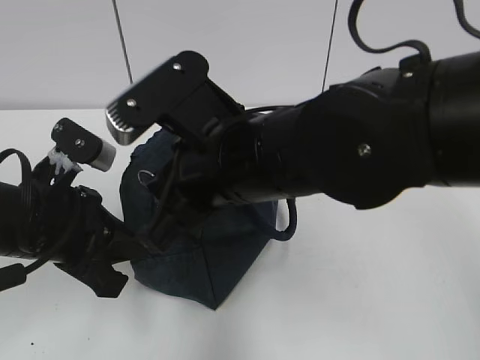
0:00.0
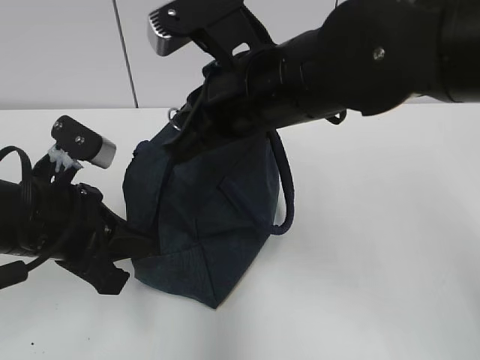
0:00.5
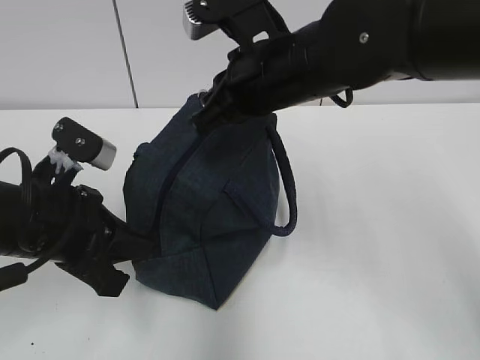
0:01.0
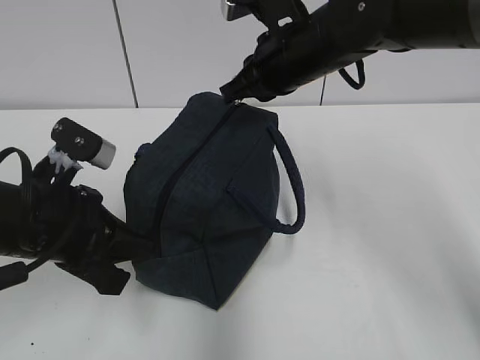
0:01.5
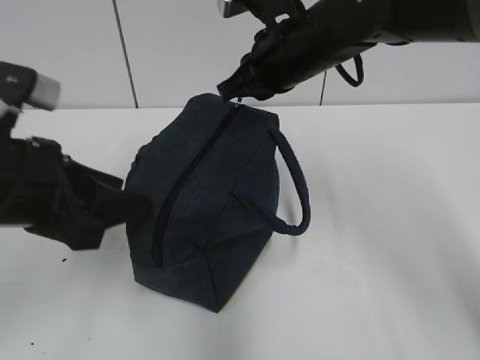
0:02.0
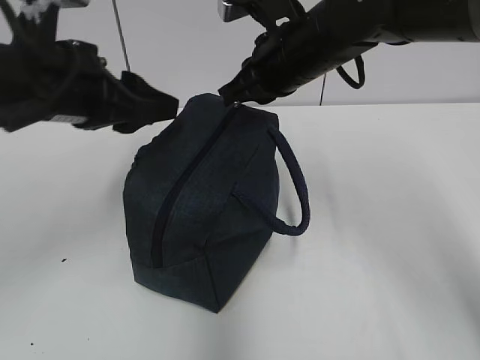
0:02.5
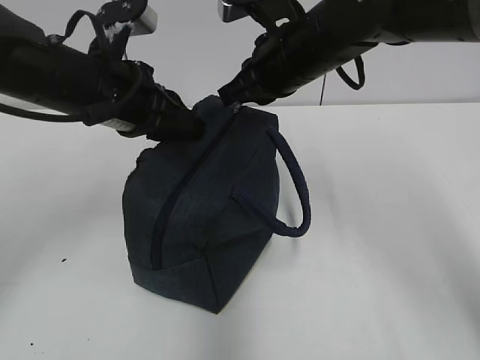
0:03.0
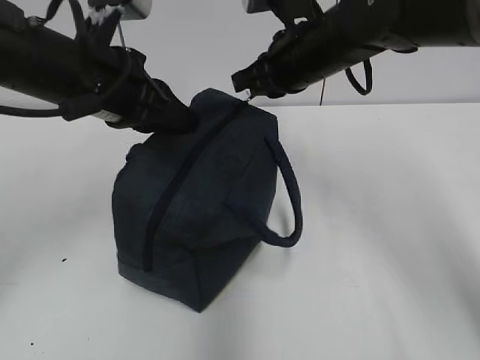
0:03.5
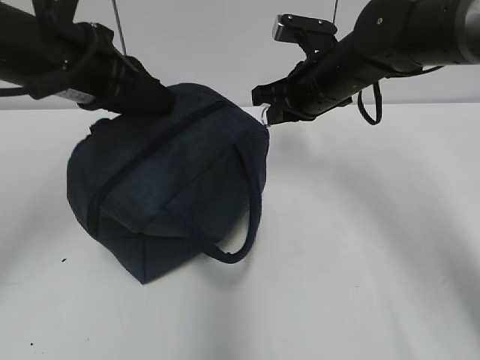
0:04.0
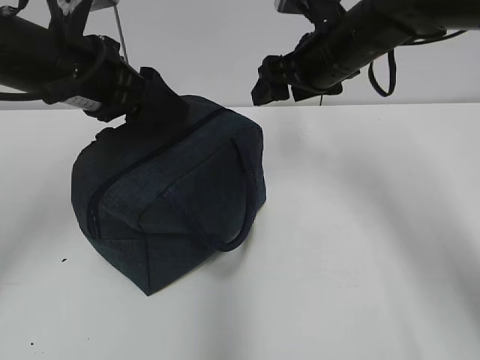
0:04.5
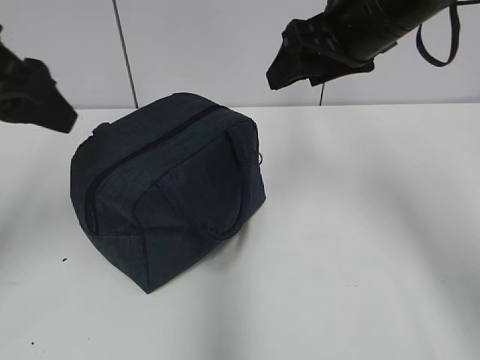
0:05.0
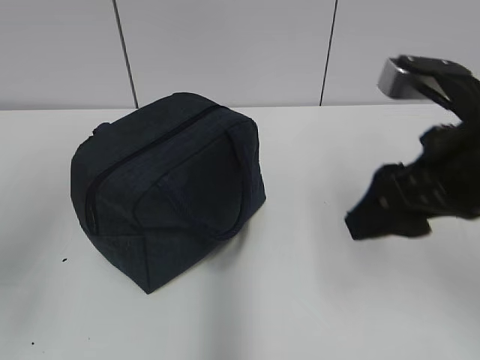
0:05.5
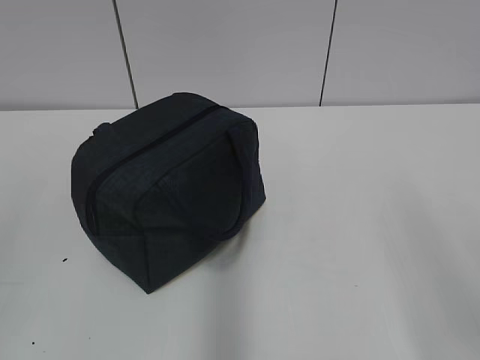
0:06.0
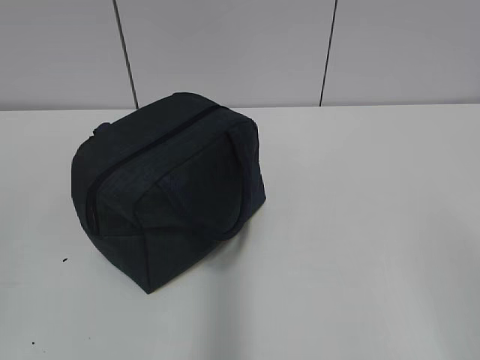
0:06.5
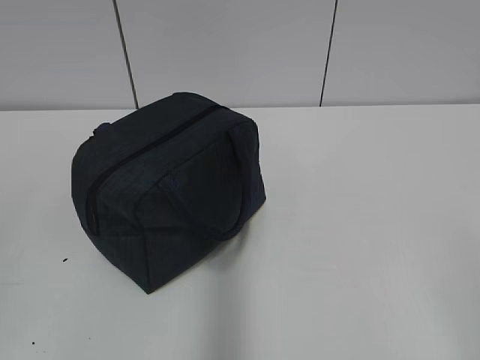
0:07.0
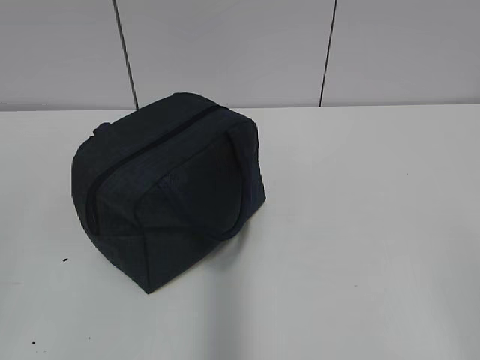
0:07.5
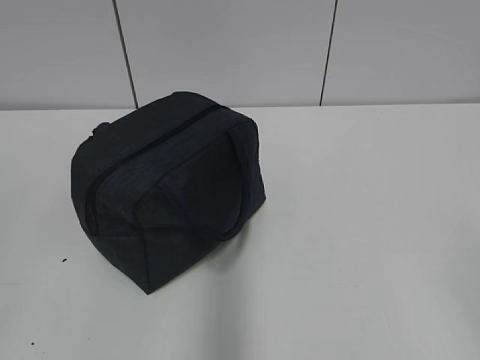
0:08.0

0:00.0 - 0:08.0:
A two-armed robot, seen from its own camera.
Step, 0:02.0 - 0:04.0: Pull the zipper with your right hand.
0:00.0 - 0:02.0: The left gripper moves upward, approximately 5 cm, and opens its fingers. The right gripper heads forward and to the right, covering some 15 cm.
0:02.0 - 0:04.0: The right gripper travels downward and to the right by approximately 5 cm. Meanwhile the left gripper travels forward and upward by some 10 cm, and closes.
0:04.0 - 0:06.0: The left gripper moves backward and to the left, roughly 30 cm, and opens up. Meanwhile the right gripper moves backward, approximately 35 cm, and opens its fingers.
0:06.0 - 0:08.0: The right gripper moves backward, about 10 cm.

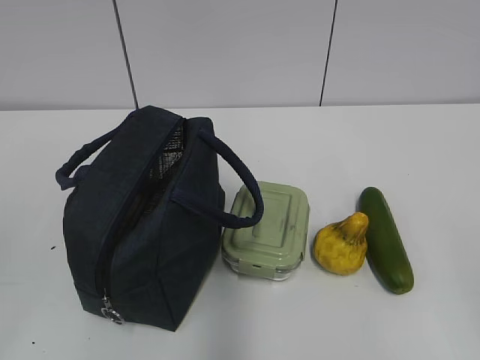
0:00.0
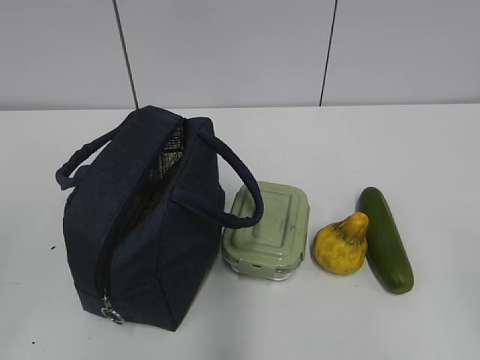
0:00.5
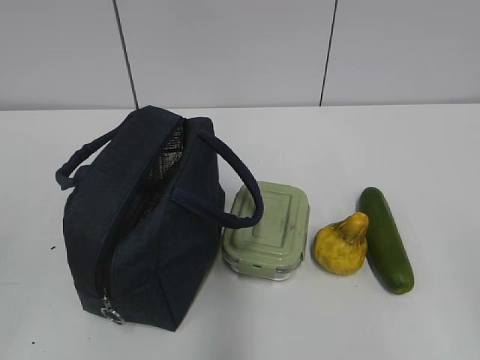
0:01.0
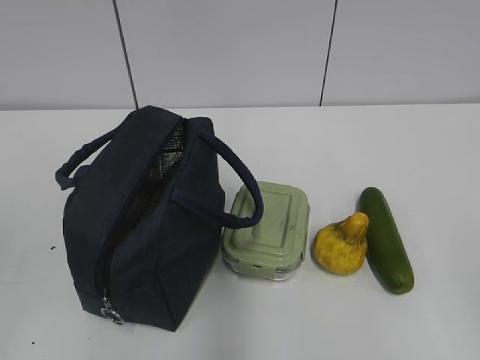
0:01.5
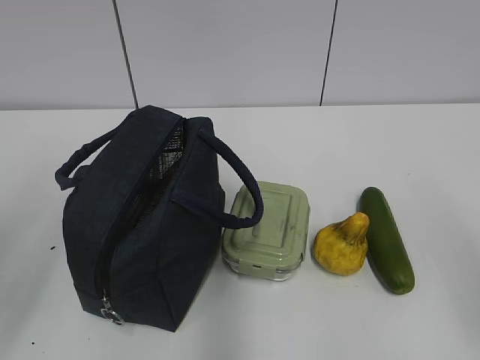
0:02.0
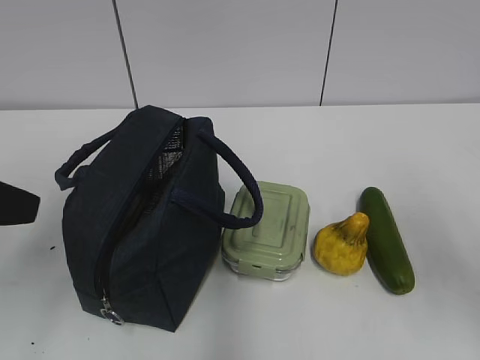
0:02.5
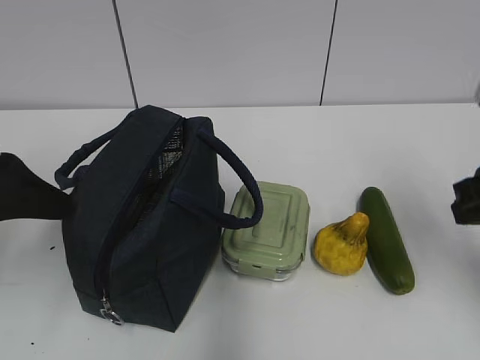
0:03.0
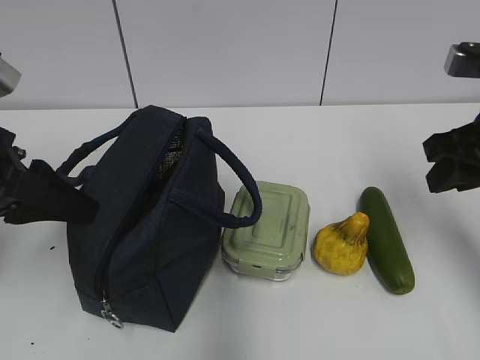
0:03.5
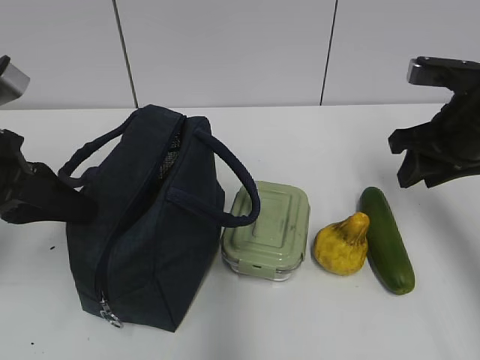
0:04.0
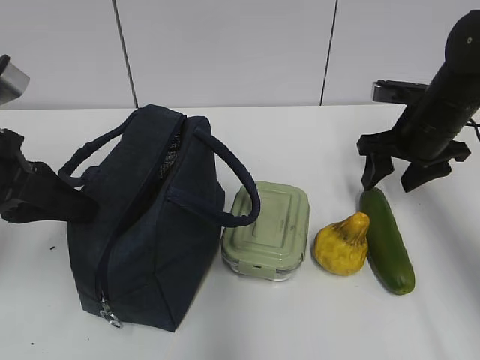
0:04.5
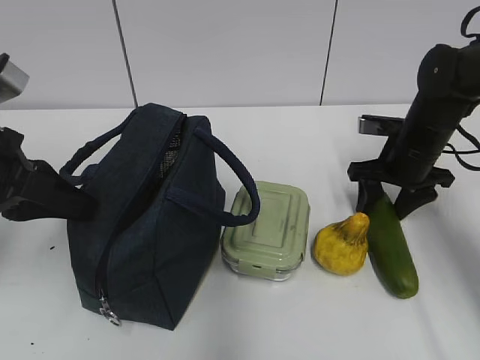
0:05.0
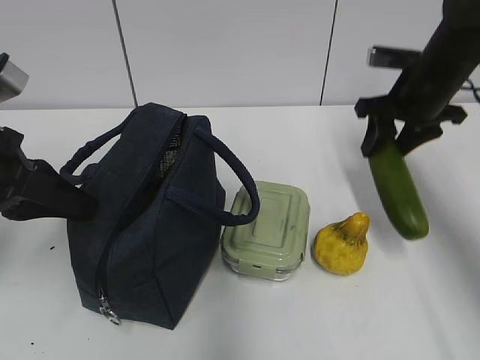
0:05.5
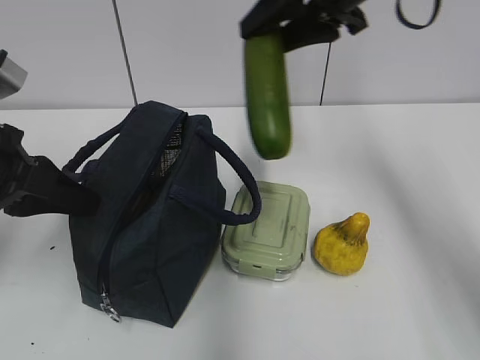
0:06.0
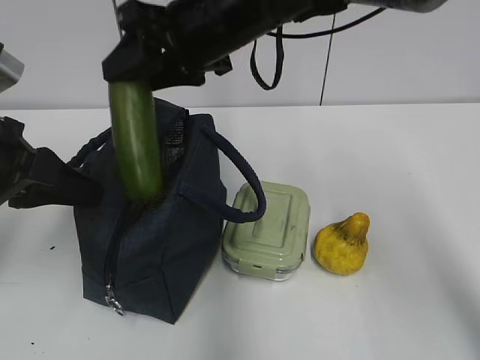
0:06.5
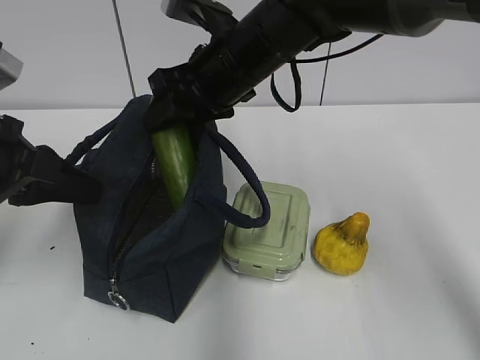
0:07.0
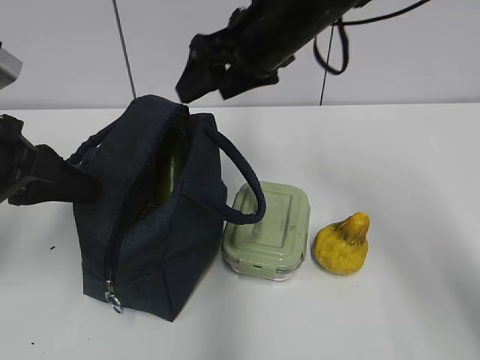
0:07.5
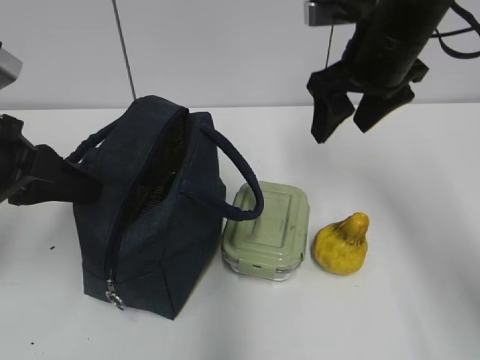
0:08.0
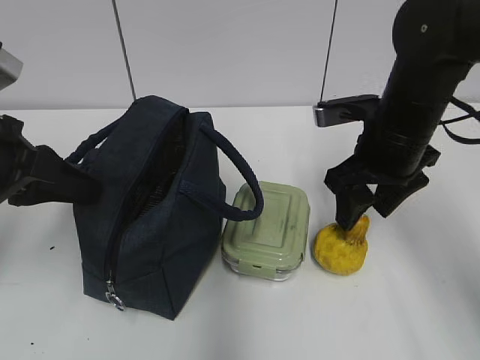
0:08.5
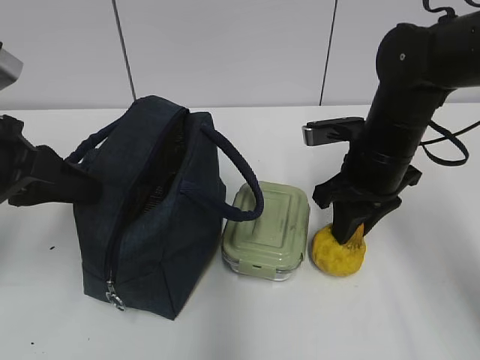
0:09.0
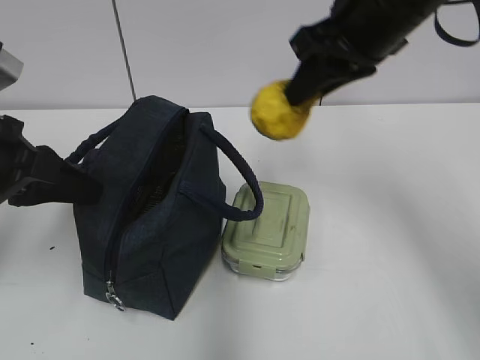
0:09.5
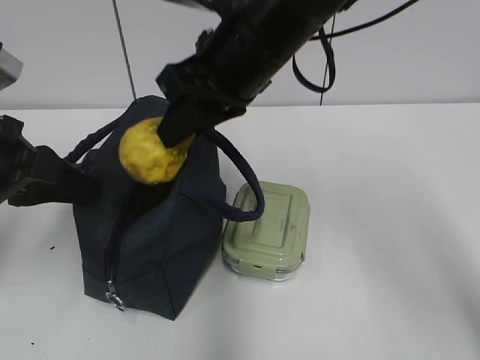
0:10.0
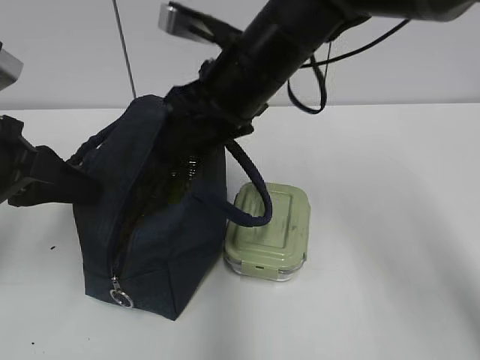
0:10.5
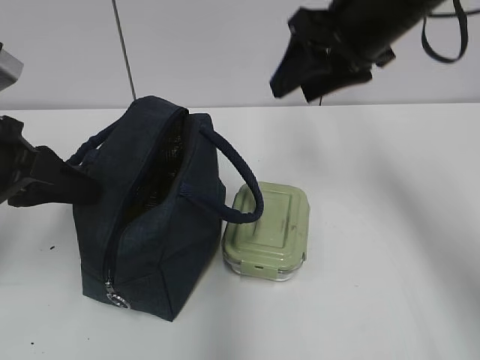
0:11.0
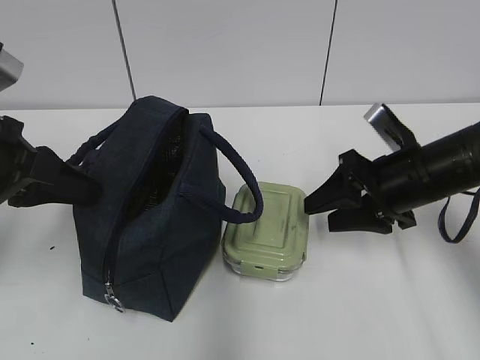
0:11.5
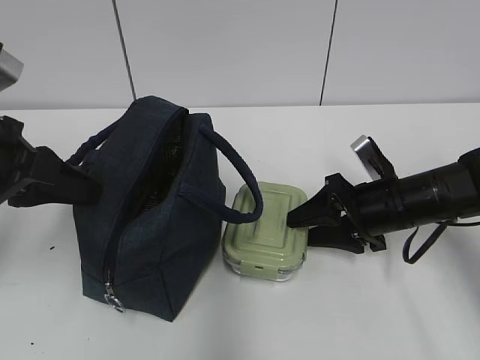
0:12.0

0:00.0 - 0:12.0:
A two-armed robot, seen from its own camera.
0:02.0 - 0:04.0: The left gripper shifts some 15 cm forward and downward, and closes up. The right gripper heads forward, covering roughly 25 cm.
0:04.0 - 0:06.0: The right gripper moves to the left, upward and forward, about 20 cm.
0:06.0 - 0:08.0: The right gripper is displaced downward by some 5 cm, and travels to the left and back again, roughly 10 cm each way.
0:08.0 - 0:10.0: The right gripper heads to the left, covering roughly 15 cm, reaches approximately 10 cm downward, then returns, and closes.
0:10.0 - 0:12.0: The right gripper travels downward and to the right by roughly 25 cm, and opens up.

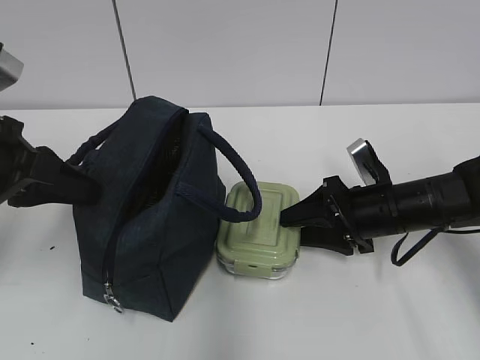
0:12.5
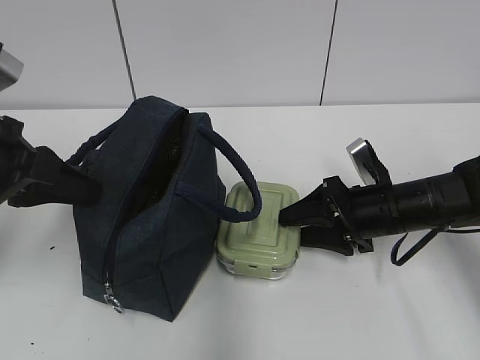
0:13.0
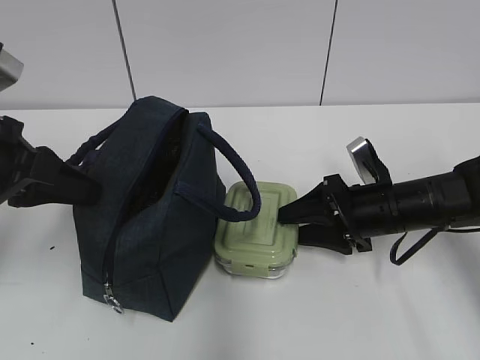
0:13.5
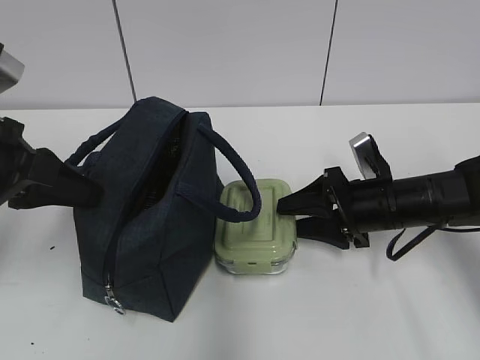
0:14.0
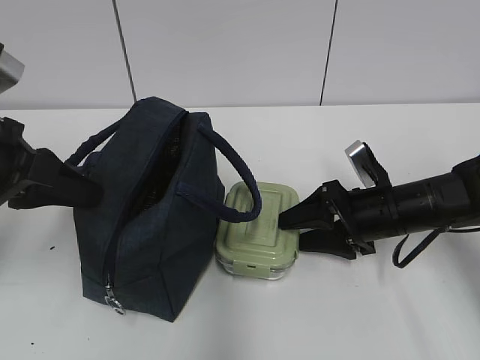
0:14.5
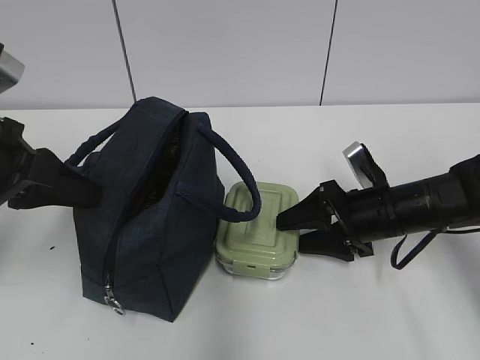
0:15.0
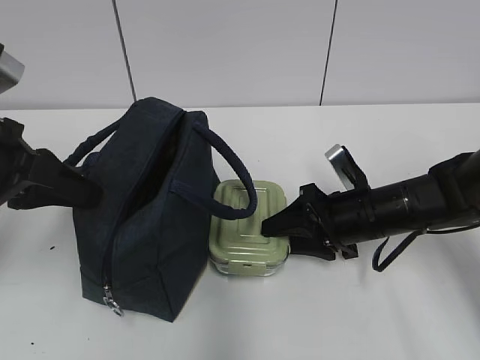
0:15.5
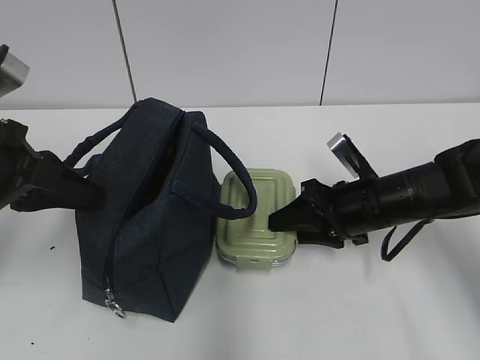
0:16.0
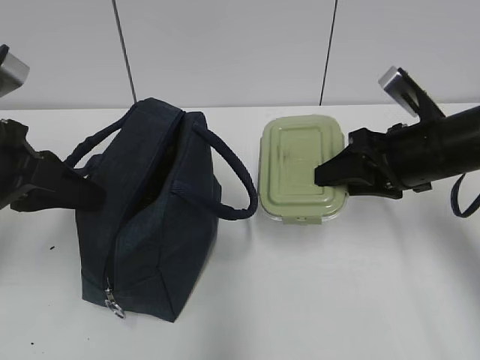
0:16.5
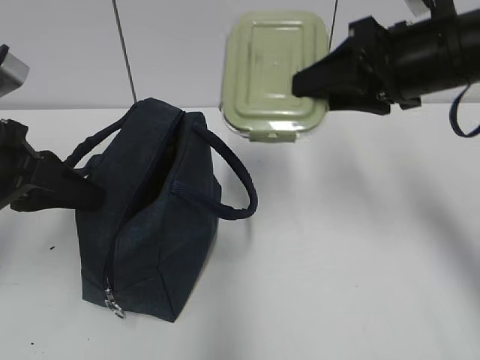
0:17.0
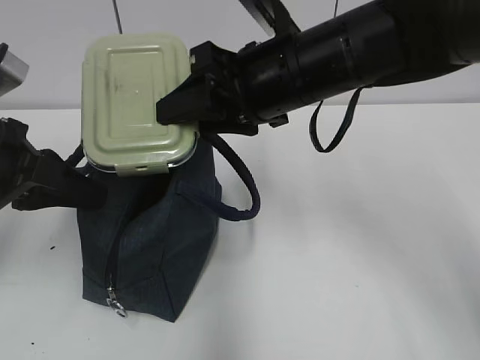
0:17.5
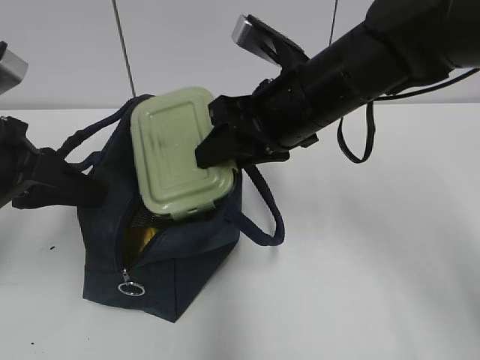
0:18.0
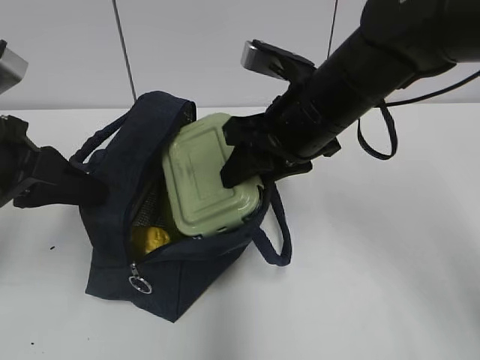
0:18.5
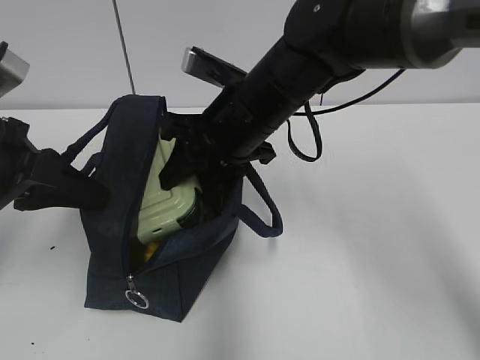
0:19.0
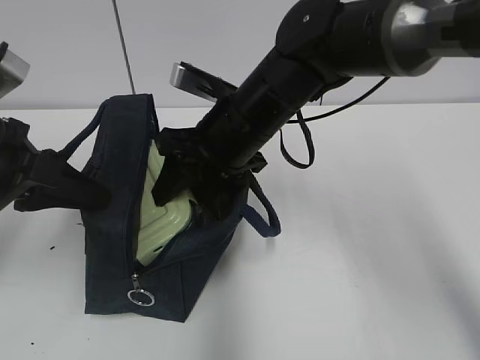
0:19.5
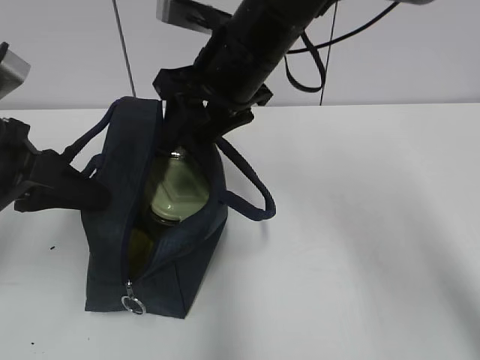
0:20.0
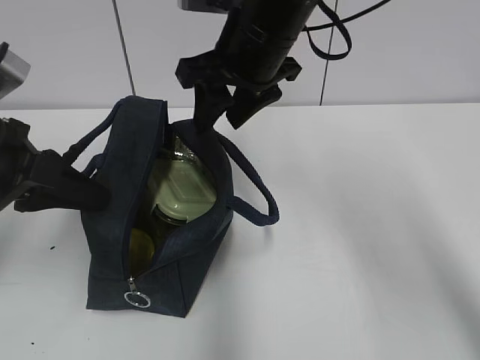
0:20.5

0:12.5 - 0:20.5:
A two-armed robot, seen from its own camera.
0:12.5 - 0:14.5: The grippers stay close to where they were, moving slightly.
0:14.5 - 0:16.5: The right gripper is displaced upward by some 10 cm, and closes up.
0:16.5 - 0:18.5: The right gripper shifts about 15 cm to the left.
0:18.5 - 0:20.5: The right gripper heads upward, covering about 5 cm.
